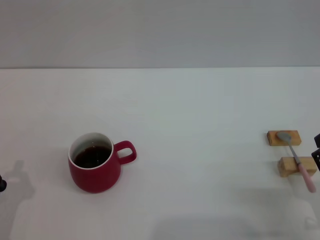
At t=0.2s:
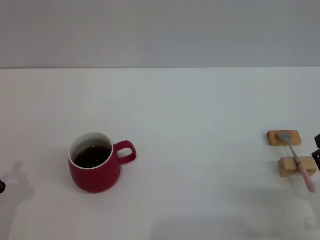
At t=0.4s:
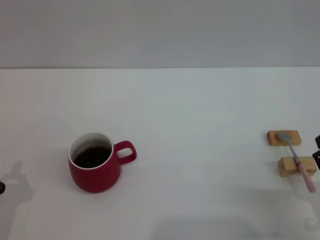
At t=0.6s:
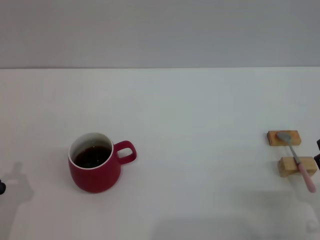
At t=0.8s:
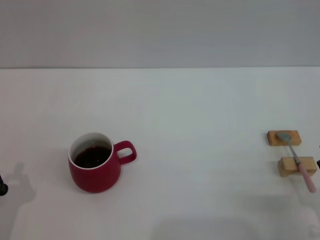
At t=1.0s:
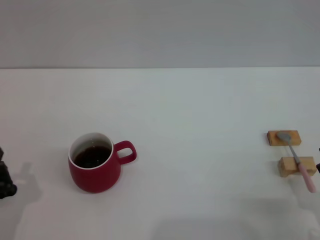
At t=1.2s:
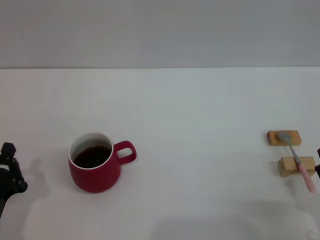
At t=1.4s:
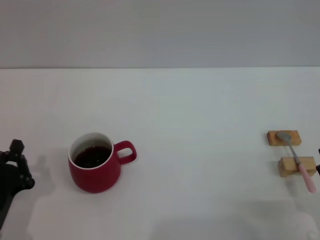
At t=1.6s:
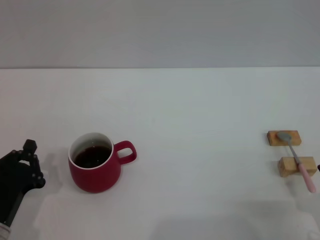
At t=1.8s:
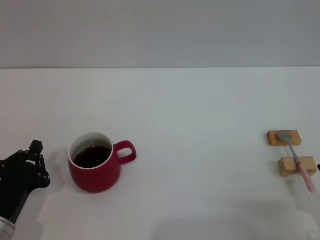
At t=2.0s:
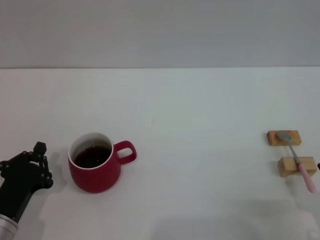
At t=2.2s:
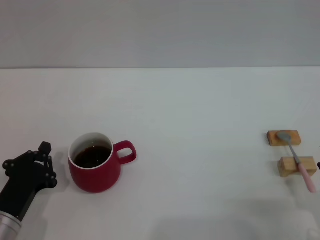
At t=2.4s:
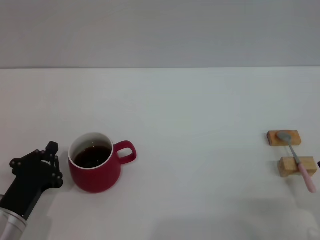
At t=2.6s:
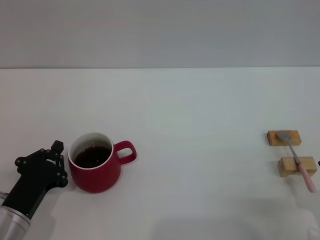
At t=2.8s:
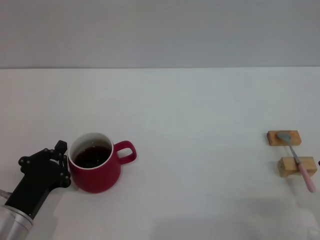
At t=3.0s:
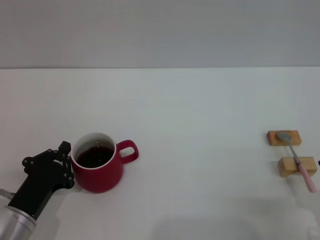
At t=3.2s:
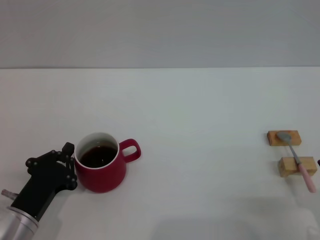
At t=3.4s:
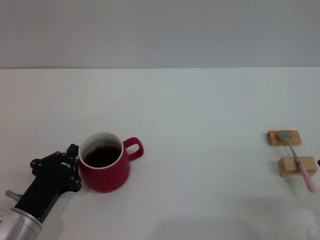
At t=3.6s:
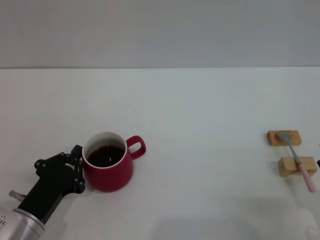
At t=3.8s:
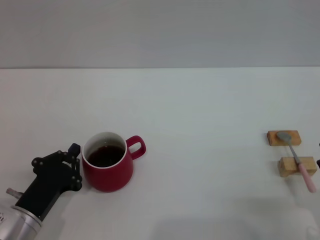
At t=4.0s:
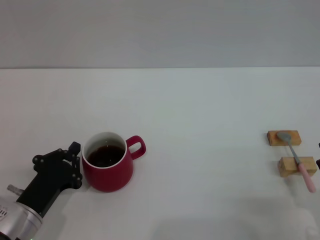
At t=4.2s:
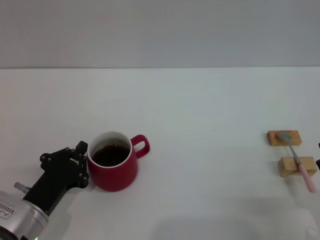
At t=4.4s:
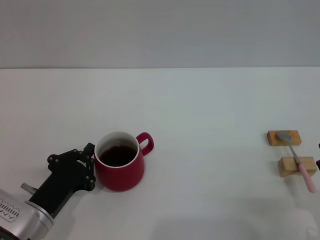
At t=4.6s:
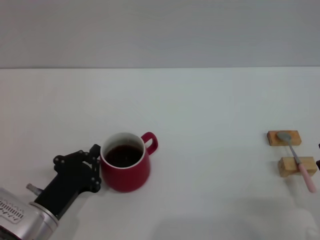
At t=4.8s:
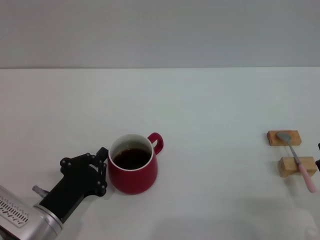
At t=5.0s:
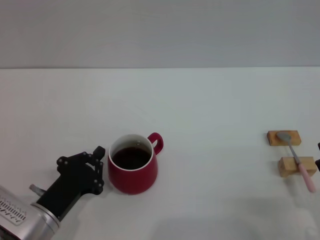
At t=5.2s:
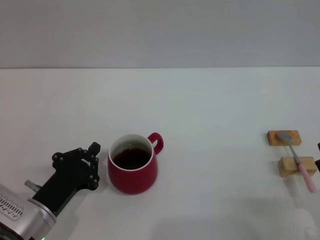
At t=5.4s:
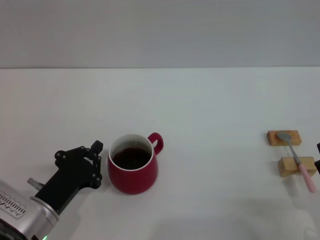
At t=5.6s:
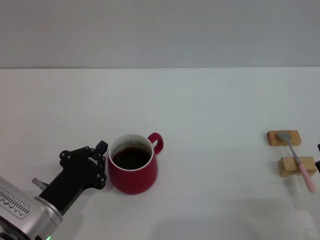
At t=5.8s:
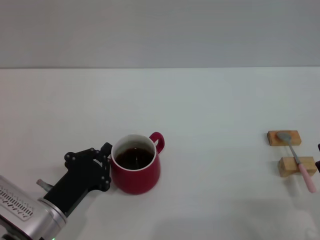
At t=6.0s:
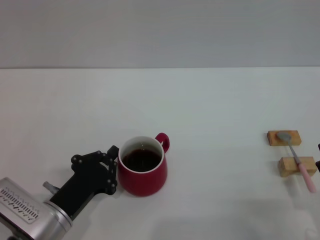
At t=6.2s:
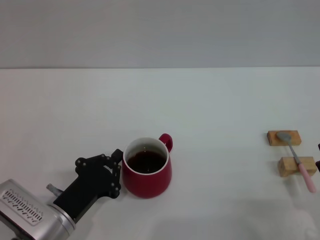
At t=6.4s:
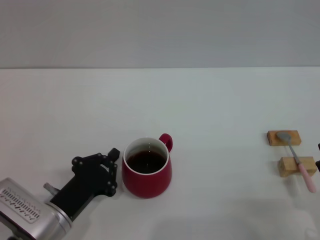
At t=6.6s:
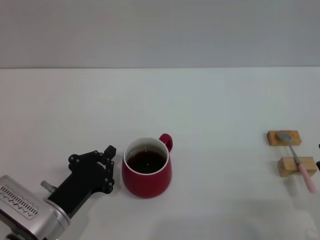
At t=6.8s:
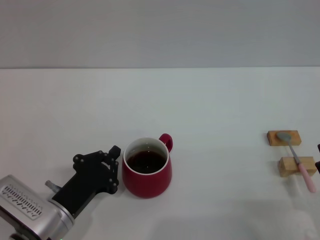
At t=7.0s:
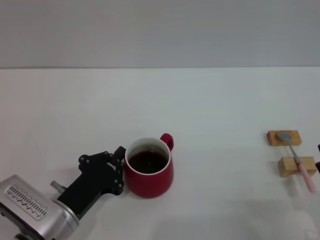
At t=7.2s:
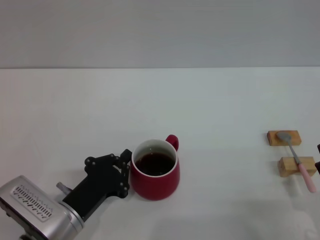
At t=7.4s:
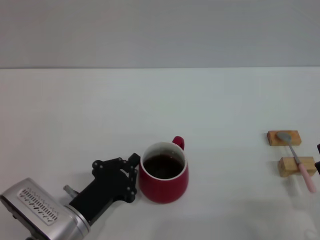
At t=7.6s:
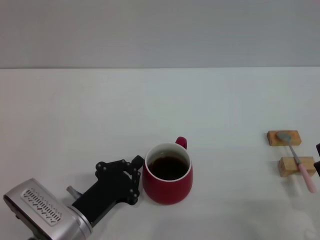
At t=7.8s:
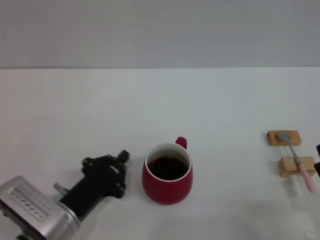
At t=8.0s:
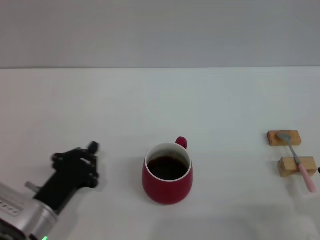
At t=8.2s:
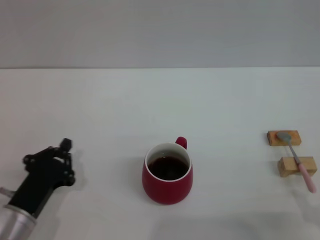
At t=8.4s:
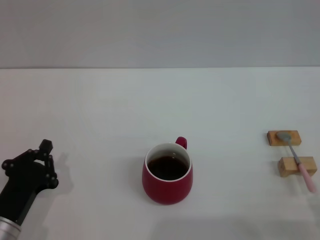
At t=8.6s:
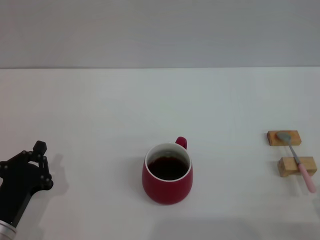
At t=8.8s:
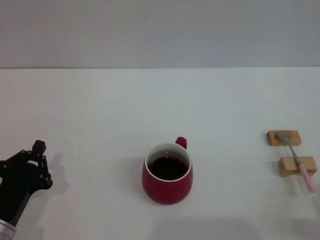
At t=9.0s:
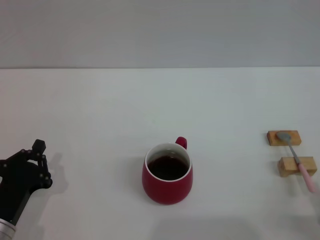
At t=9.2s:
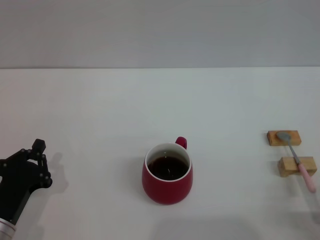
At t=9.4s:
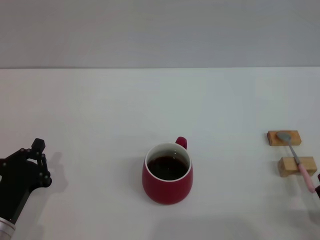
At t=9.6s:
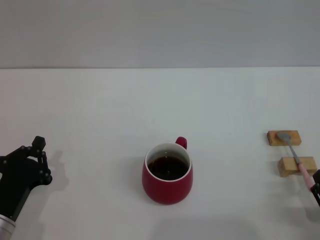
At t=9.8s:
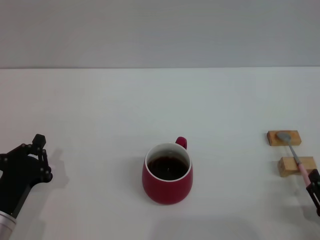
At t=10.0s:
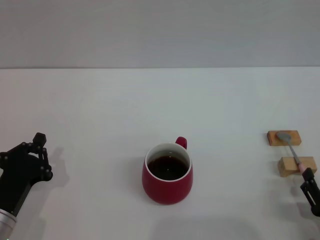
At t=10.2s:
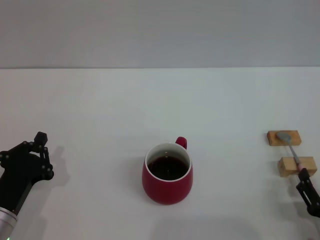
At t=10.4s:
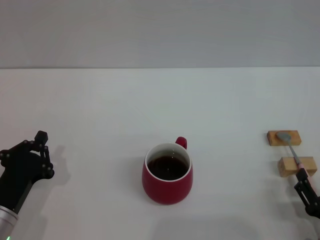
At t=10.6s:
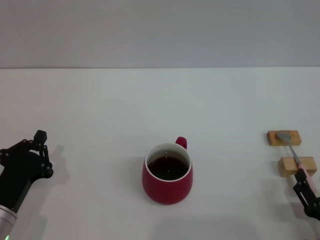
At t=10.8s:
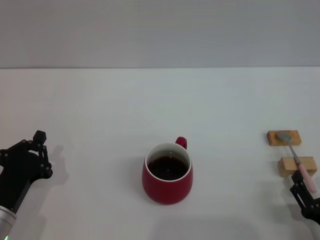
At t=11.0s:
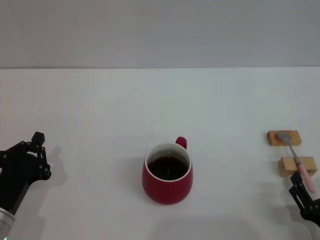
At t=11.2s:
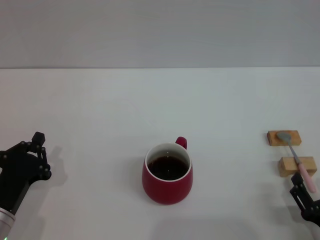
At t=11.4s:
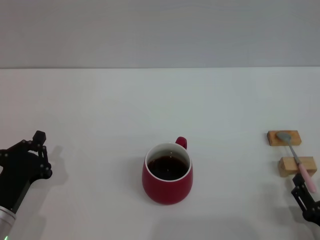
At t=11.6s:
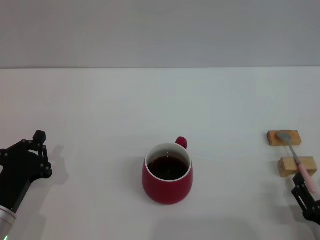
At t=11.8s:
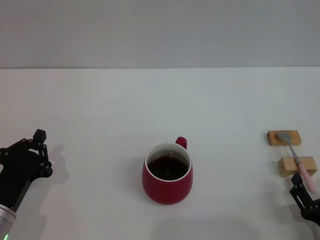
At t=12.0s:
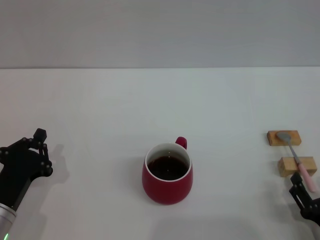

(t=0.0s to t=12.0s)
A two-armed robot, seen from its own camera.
Task of the whole recording: Move the red cup to the center, lift the pink spoon, stir it three times in the cup, and put the spoon into the cup.
Step, t=0.0s - t=8.8s: Move the cup with coffee to the center of view with the left gripper.
t=0.0s - t=1.6s: The grippers make only small movements.
t=1.6s - t=4.4s: The grippers move only a little.
t=4.4s - t=7.6s: There are only small adjustments of the grippers.
t=7.6s - t=9.0s: The left gripper goes roughly 10 cm to the left.
t=9.0s - t=10.4s: The grippers move only a little.
t=10.4s - t=12.0s: Both grippers stay about where they are.

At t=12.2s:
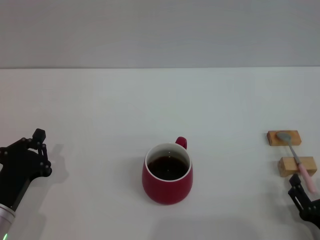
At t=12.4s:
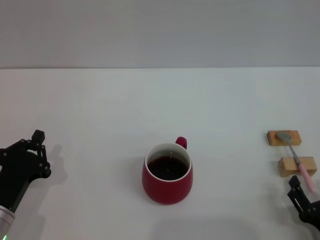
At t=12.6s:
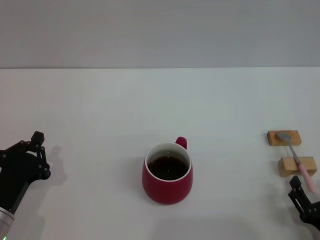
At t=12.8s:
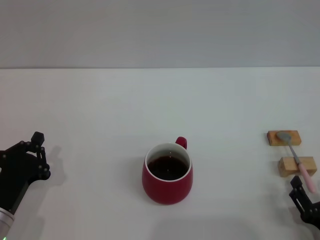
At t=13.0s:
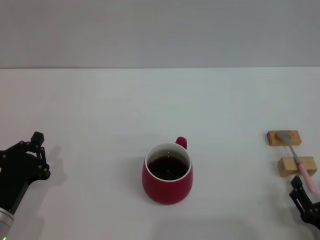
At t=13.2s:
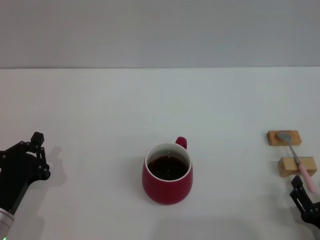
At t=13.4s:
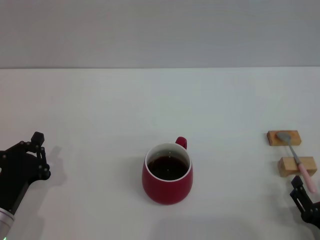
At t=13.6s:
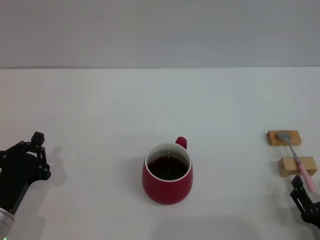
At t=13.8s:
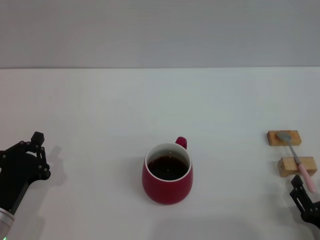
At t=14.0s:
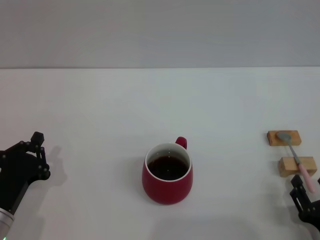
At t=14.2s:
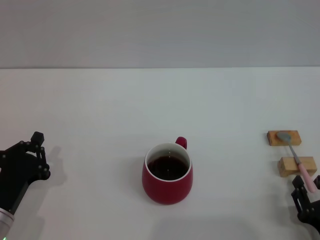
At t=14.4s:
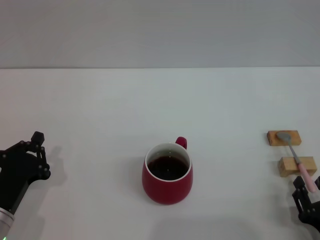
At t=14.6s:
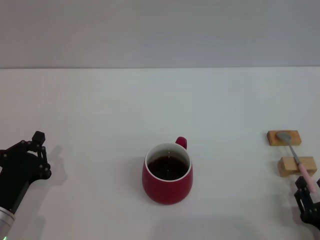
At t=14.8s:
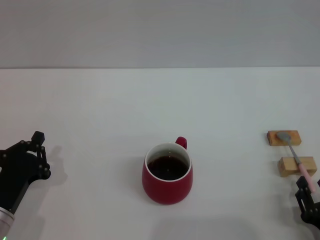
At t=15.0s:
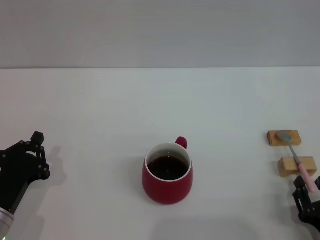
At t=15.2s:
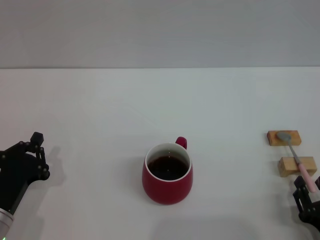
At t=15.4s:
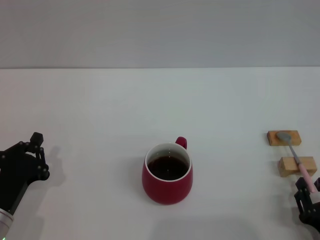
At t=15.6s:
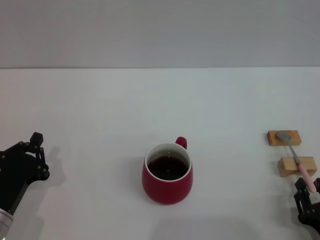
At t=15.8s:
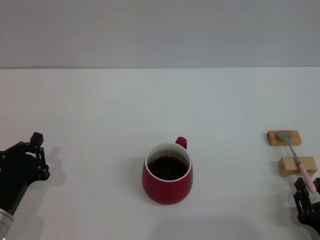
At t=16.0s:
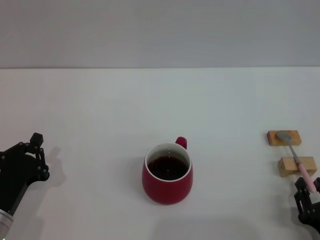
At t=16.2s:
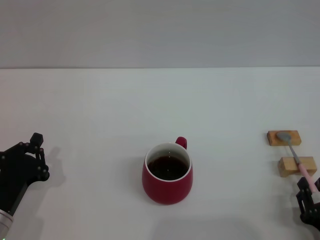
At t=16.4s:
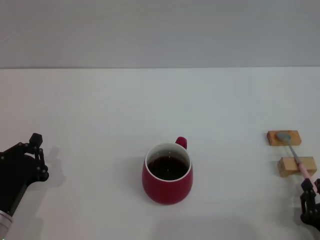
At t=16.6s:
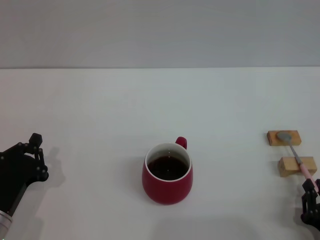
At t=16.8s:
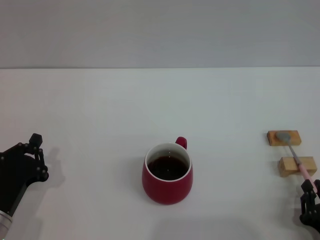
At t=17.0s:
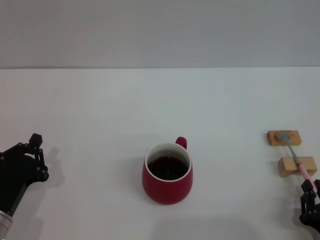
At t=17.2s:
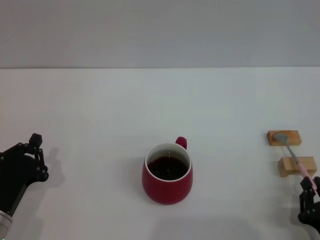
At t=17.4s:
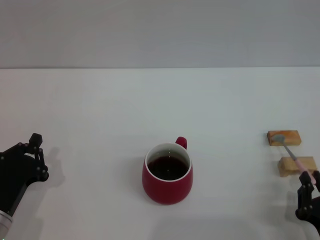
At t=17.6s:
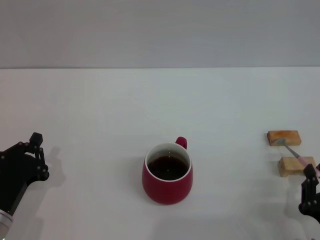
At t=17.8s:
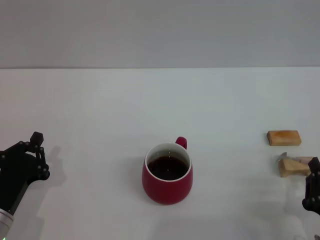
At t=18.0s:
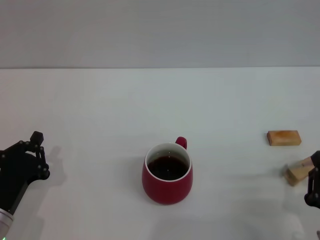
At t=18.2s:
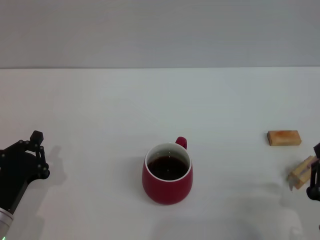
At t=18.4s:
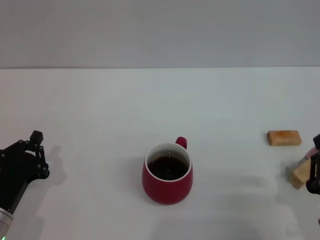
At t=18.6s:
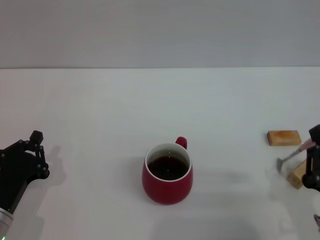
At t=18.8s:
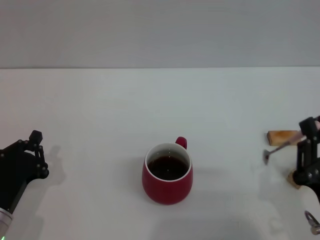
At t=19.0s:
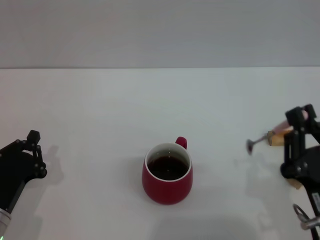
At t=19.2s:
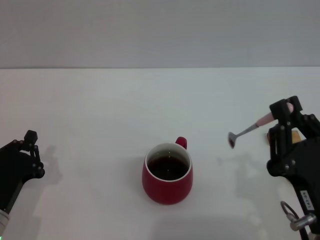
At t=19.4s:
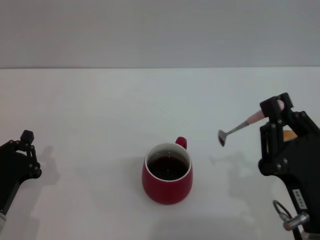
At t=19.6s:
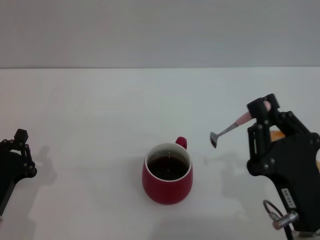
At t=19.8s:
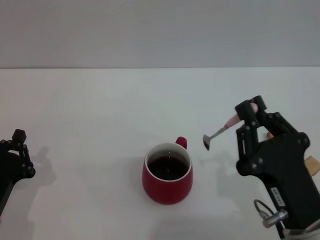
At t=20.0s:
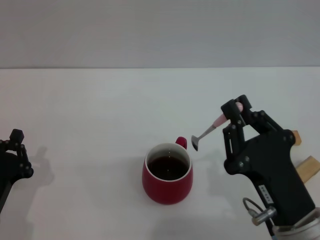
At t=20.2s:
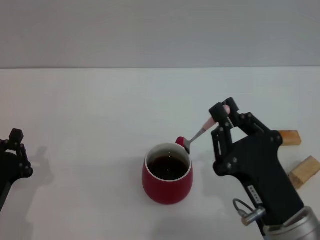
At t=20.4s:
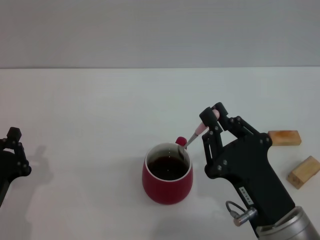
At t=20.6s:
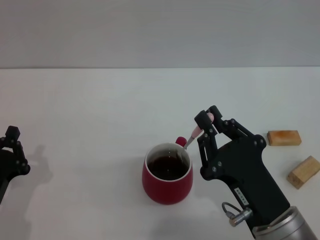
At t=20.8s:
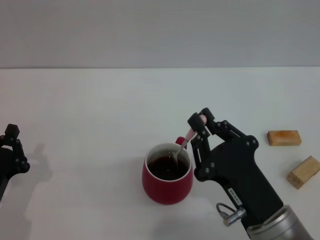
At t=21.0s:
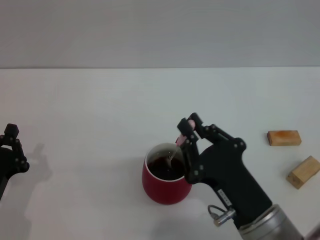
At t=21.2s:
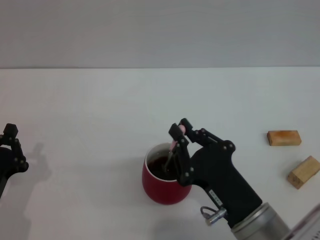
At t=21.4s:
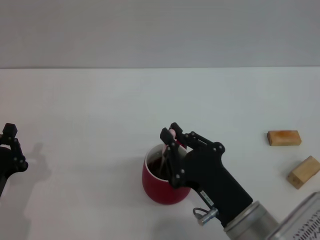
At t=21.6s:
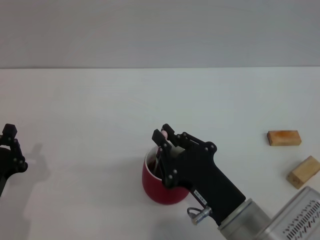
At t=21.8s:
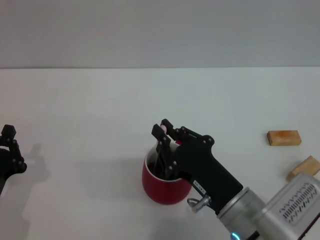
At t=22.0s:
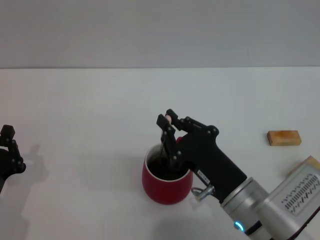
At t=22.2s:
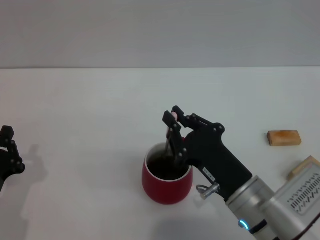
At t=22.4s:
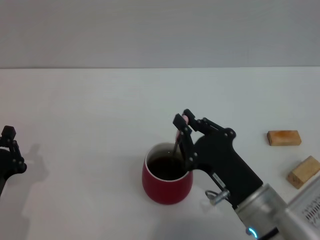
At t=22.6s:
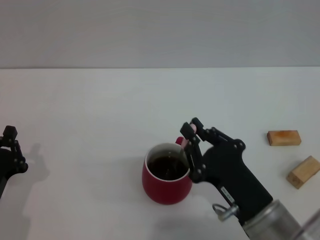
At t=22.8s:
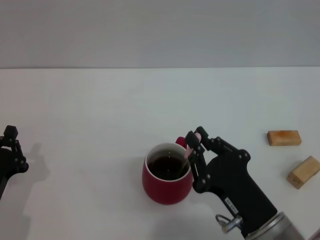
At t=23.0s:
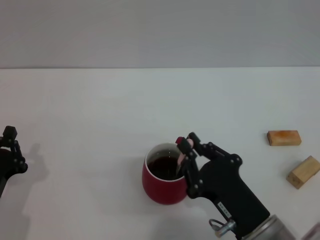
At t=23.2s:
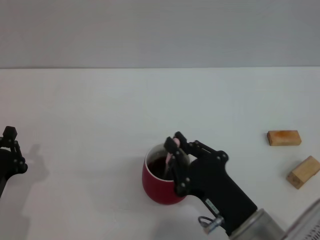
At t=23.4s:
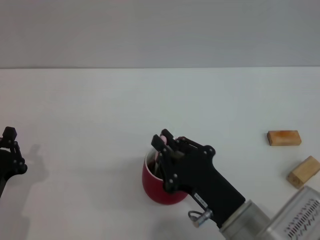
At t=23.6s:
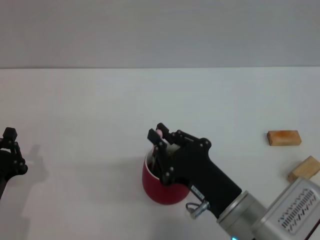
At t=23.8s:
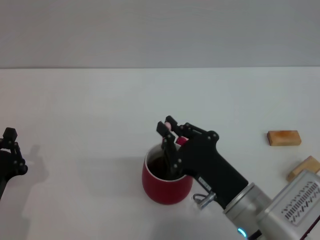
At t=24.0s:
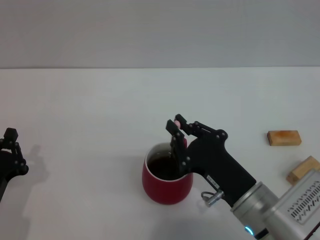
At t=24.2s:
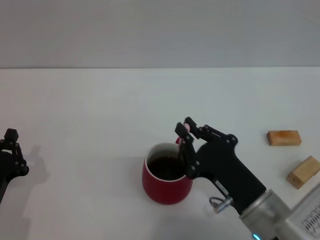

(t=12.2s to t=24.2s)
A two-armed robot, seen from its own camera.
Task of the whole recording: Move the red cup to the center, lift the pink spoon, stir it three times in the cup, and put the spoon into the cup.
Step, t=12.2s - t=19.0s: Pick up the spoon with the right gripper.
t=12.2s - t=13.8s: The two grippers keep their place.
t=15.2s - t=16.6s: Both grippers stay put.
t=16.6s - t=18.2s: The right gripper goes about 5 cm upward.
t=18.2s - t=19.8s: The right gripper shifts roughly 10 cm to the left.
t=19.8s - t=21.2s: The right gripper moves some 5 cm.
t=21.2s - t=24.2s: There are only small adjustments of the grippers.
